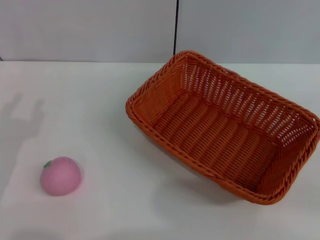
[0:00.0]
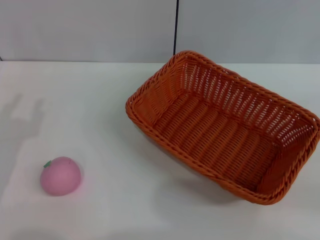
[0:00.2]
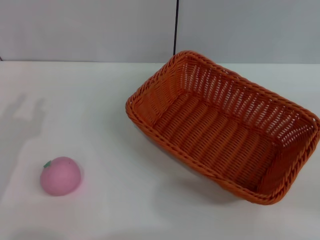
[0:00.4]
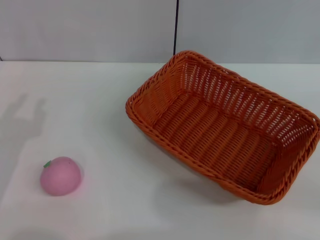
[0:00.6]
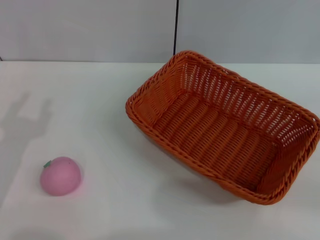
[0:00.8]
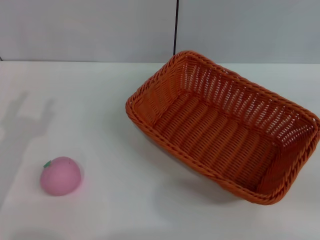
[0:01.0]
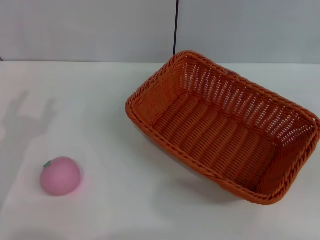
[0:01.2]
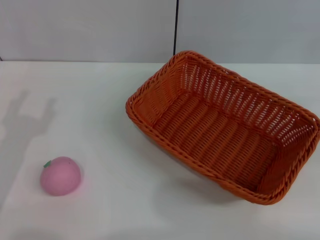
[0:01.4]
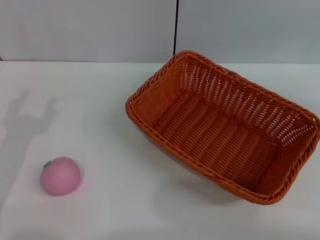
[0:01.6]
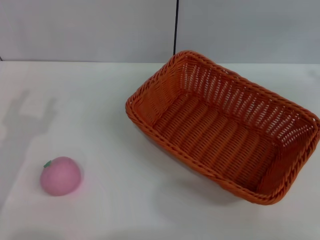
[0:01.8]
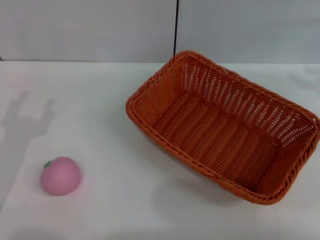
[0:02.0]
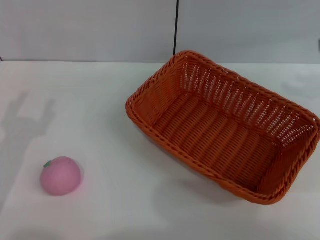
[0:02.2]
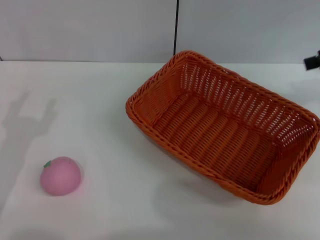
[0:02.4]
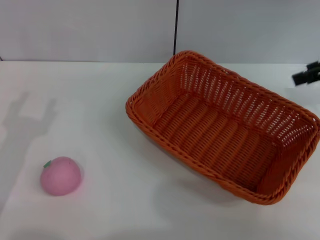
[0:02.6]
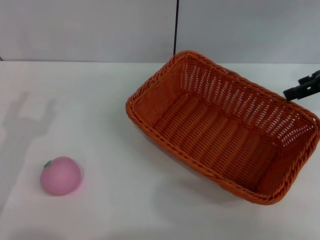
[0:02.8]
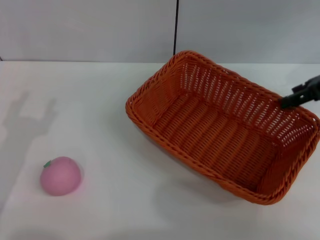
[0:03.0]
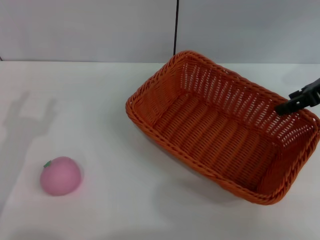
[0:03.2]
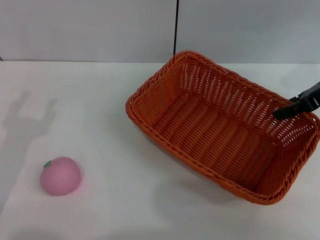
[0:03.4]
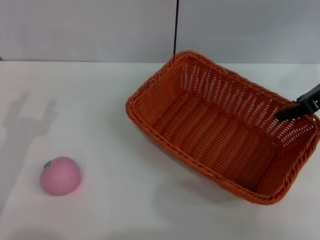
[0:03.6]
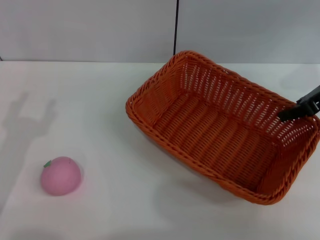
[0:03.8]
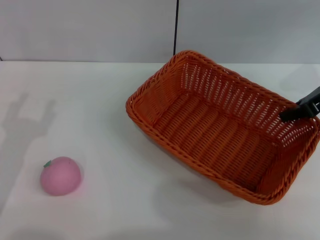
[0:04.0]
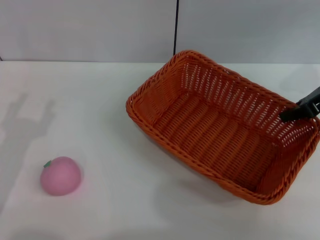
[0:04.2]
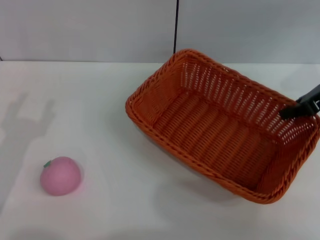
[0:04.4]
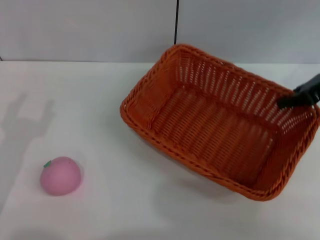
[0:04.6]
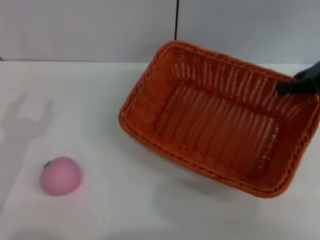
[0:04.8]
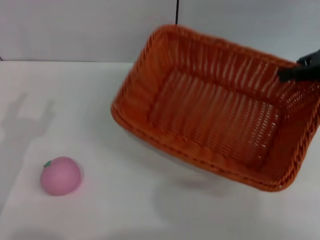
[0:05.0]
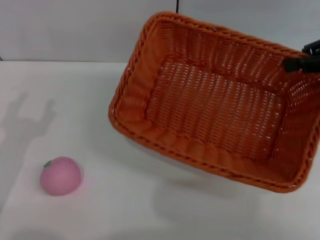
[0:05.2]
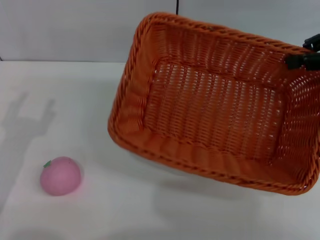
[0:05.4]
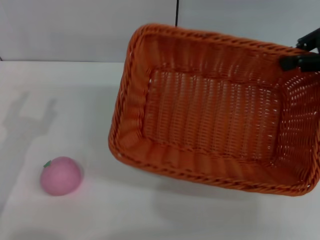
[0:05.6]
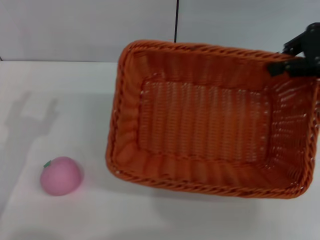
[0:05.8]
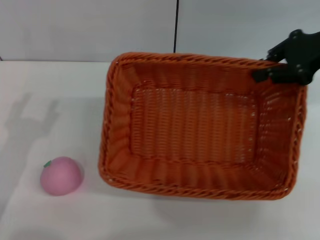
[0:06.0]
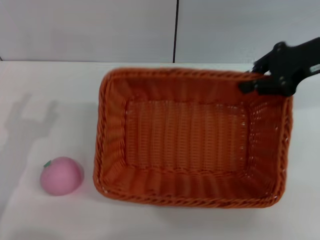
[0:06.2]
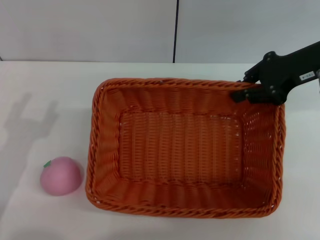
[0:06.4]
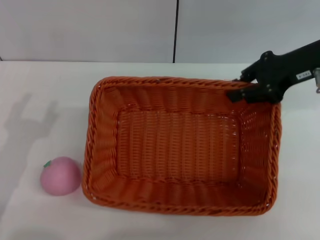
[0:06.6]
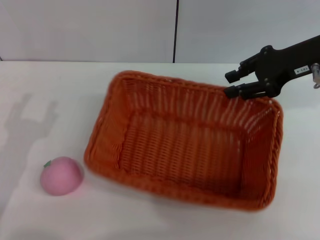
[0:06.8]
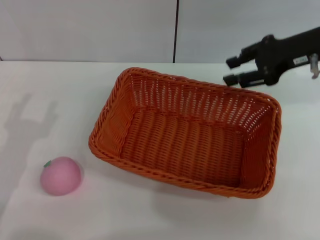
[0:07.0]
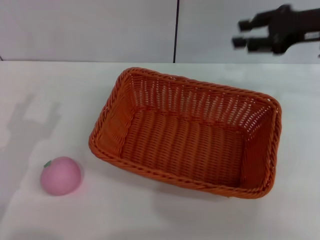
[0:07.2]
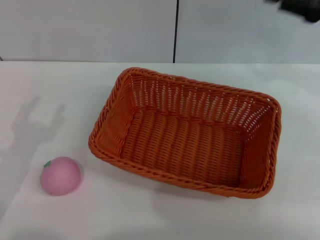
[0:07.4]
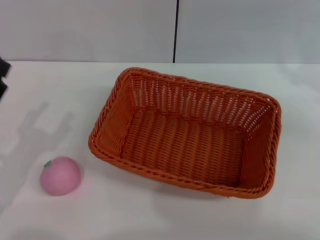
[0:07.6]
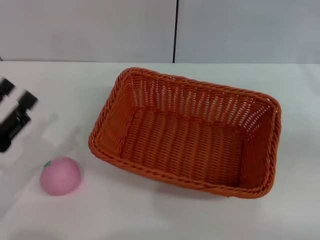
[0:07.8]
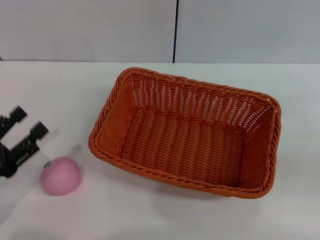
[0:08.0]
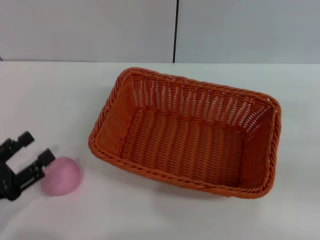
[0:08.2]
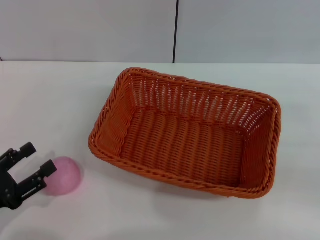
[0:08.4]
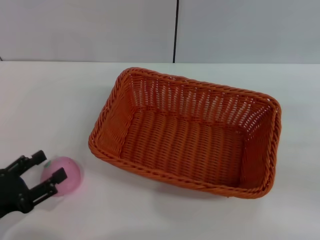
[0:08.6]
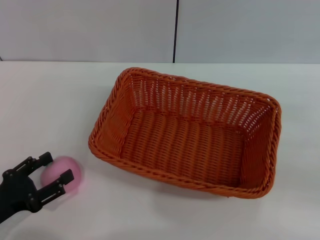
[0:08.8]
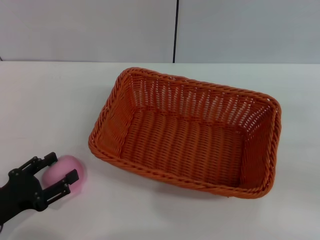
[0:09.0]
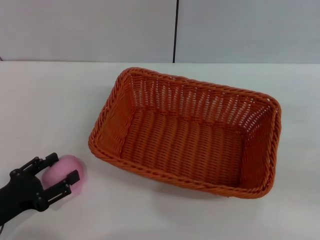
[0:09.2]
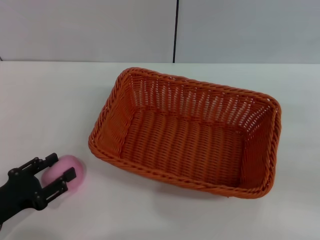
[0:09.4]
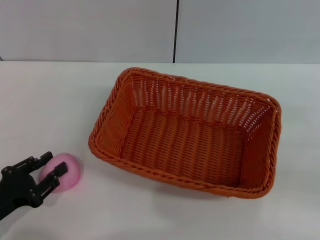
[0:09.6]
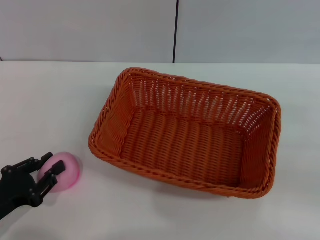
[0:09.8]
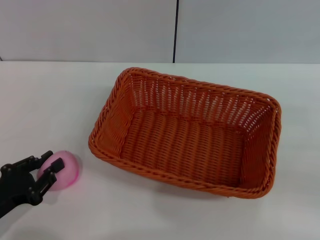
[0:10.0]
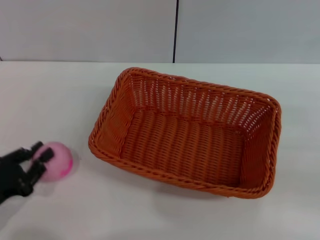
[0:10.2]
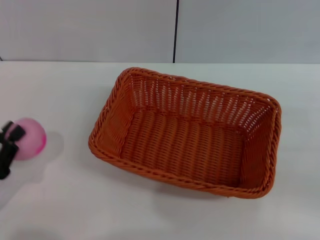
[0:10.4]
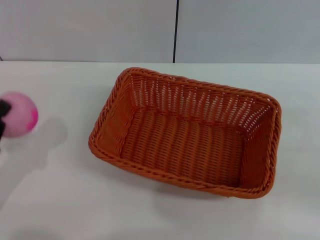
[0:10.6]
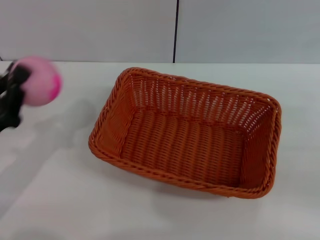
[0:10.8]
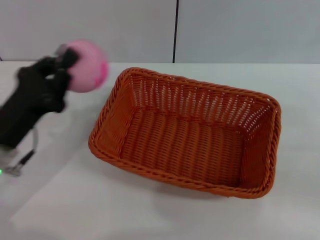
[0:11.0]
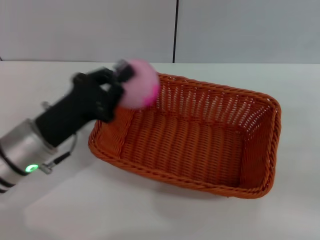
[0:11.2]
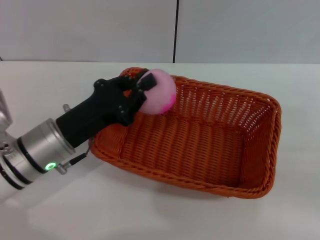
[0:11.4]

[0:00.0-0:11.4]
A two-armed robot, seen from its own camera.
Step, 0.0 to 4.4 s: Pick up the light basket with the right gripper.
Step, 4.6 to 6.8 s: Place the light basket in the center of view with the right gripper.
Step, 7.2 to 10.2 s: Pick up the peach with the left gripper.
1.4 to 2.8 s: The right gripper shifts approximately 20 cm to the left and forward.
2.8 to 4.2 s: The right gripper closes its fingers.
4.2 to 5.6 s: The right gripper goes approximately 5 cm upward.
5.6 to 7.2 s: The right gripper ends up about 5 cm from where it was, and opens.
7.2 to 8.6 s: The left gripper is displaced downward by approximately 5 cm, while the right gripper shifts about 20 cm backward, to the right and downward.
8.6 to 10.0 s: The left gripper closes its fingers.
10.0 to 11.4 s: The left gripper travels to the right, forward and upward by roughly 15 cm.

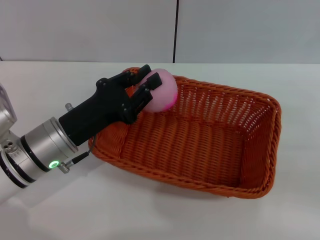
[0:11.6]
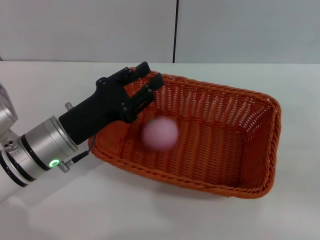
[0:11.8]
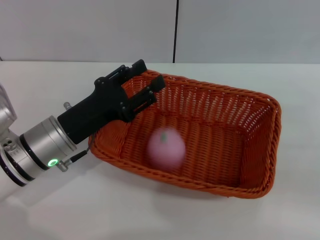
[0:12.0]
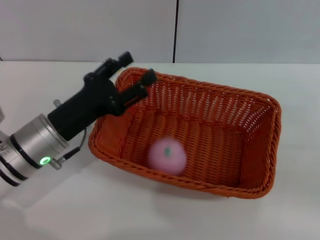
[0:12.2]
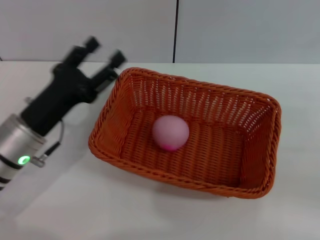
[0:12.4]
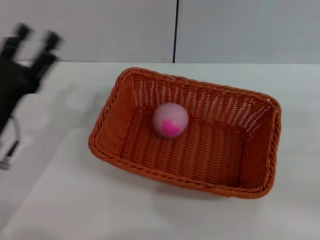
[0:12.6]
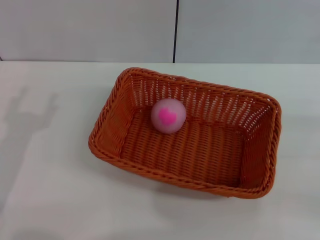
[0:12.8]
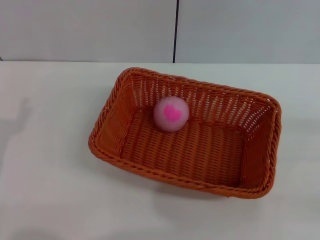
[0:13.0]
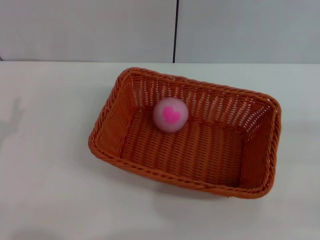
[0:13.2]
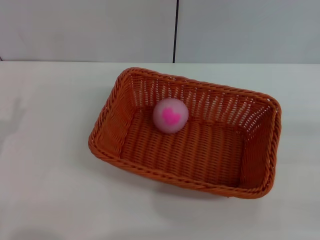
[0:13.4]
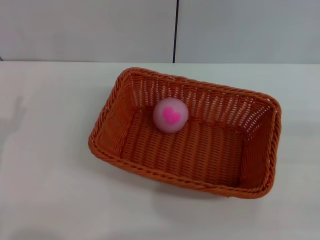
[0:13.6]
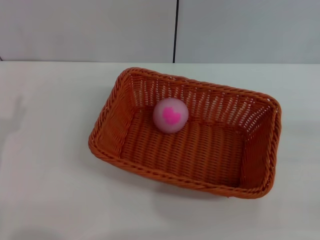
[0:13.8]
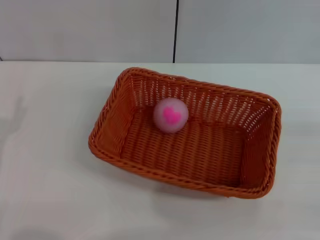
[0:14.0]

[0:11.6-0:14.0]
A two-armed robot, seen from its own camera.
11.6 to 12.8 s: The left gripper heads to the left and backward, covering about 10 cm, and opens up.

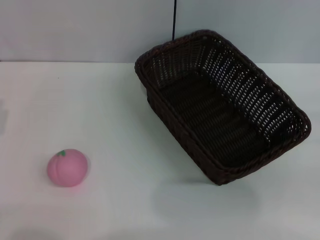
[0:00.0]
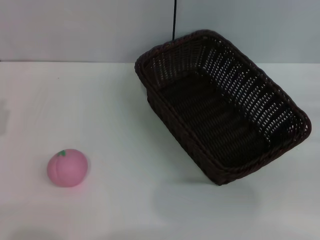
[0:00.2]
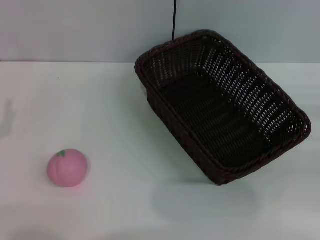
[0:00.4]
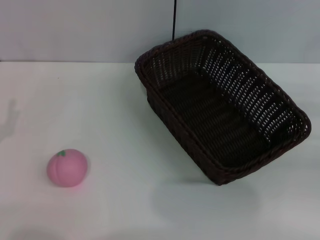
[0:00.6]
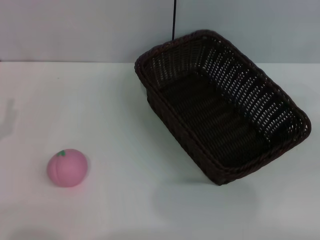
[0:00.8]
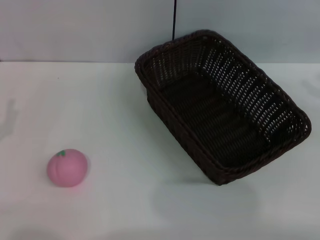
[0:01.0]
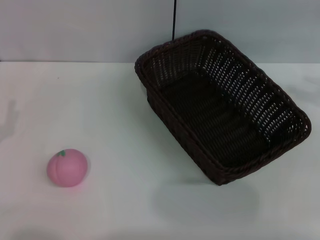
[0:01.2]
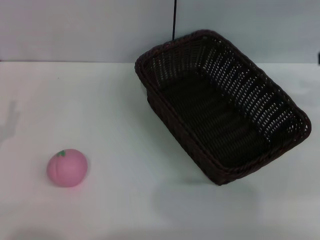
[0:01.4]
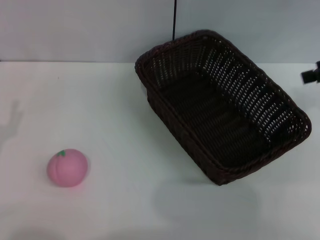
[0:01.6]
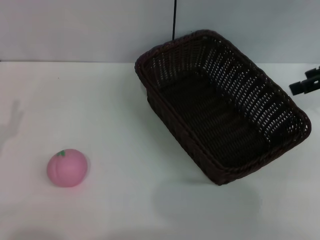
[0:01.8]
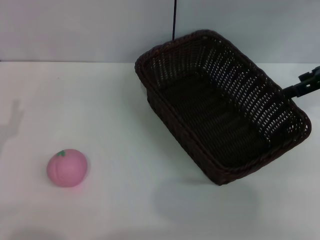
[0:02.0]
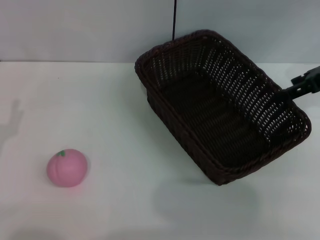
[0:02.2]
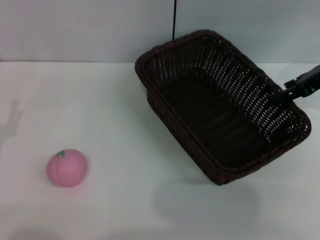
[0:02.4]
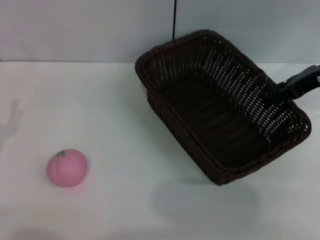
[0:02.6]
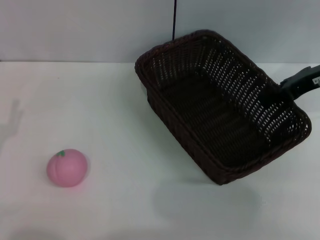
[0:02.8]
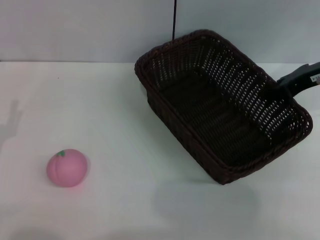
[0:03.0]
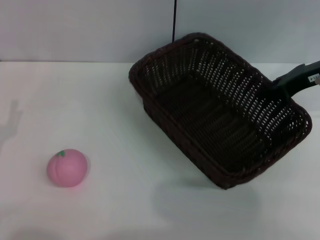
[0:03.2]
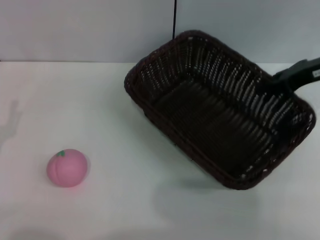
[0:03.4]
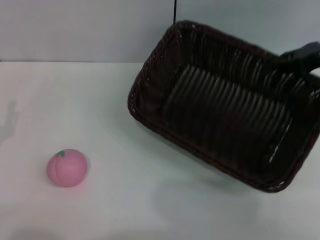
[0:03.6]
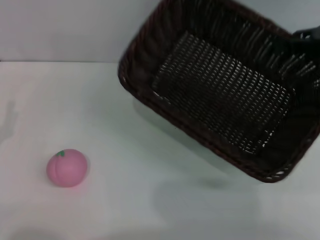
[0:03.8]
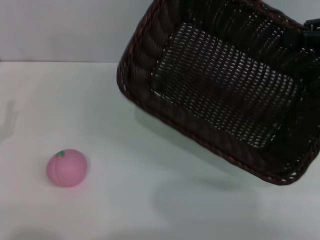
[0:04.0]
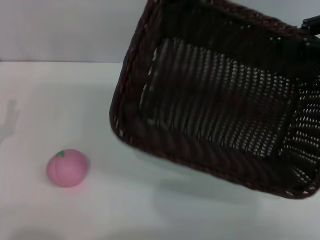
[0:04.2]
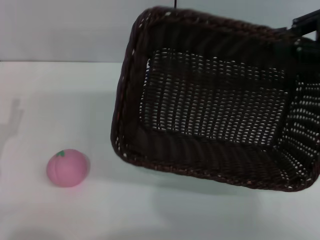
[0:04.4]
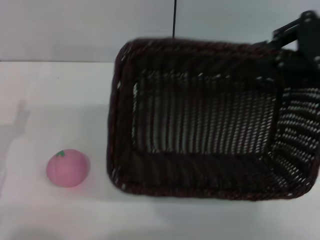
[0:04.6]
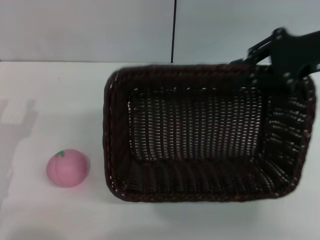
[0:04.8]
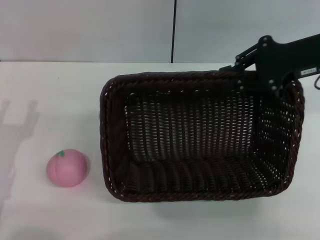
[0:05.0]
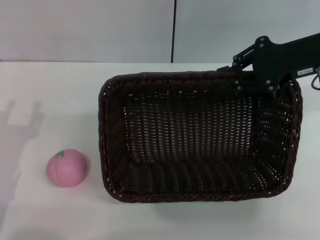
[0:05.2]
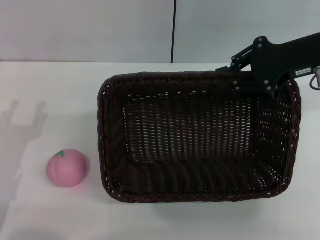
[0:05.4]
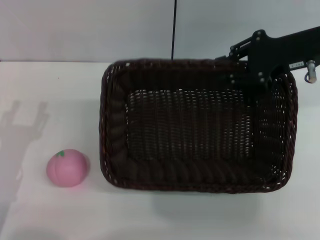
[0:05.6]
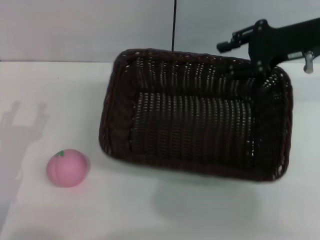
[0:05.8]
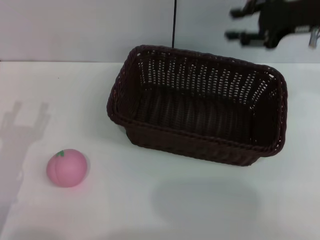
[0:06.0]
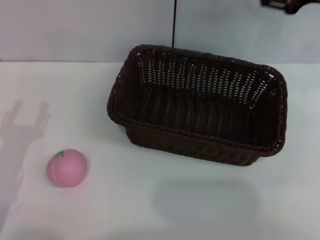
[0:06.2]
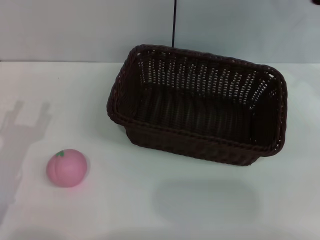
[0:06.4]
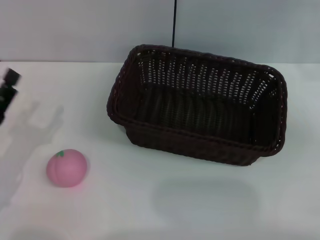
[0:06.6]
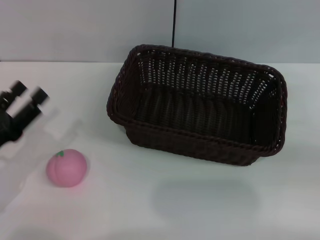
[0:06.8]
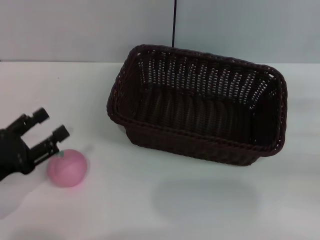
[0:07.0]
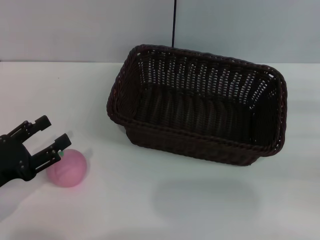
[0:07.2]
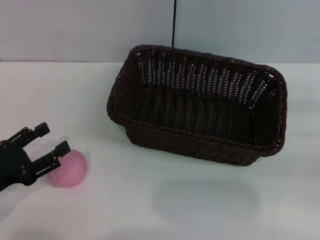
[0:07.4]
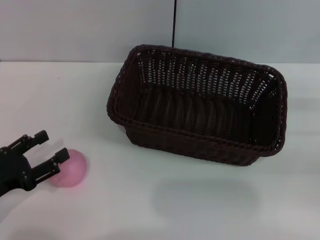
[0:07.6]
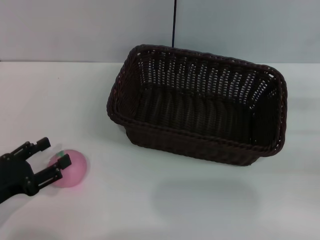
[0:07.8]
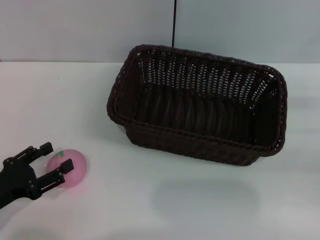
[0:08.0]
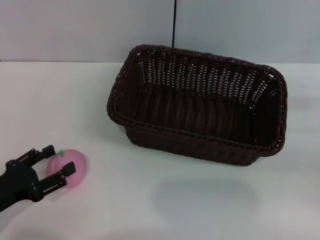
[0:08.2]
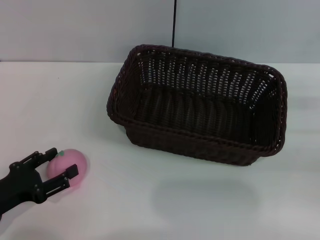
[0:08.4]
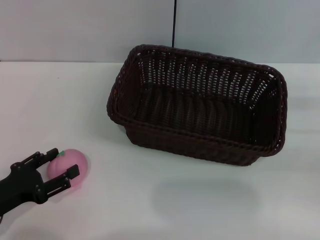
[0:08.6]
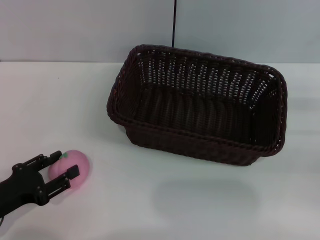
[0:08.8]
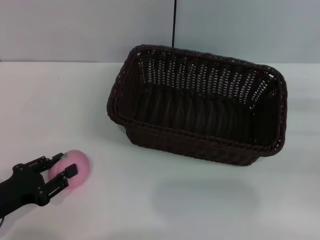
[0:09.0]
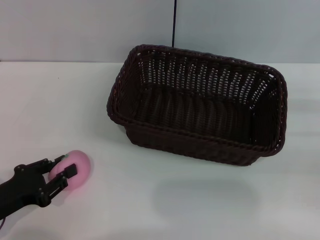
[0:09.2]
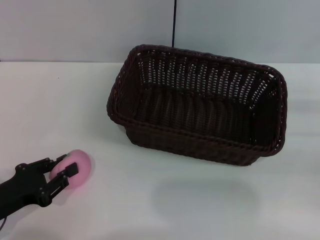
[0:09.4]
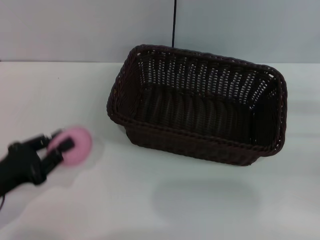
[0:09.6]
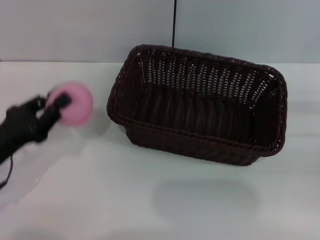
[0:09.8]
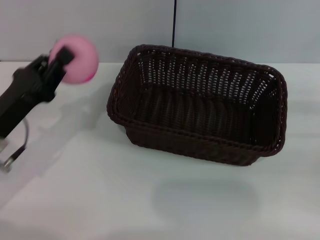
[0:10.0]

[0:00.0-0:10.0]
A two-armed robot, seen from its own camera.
Step, 3.6 to 6.2 s: Place the dark basket in the center of view with the right gripper.
Step, 6.4 to 9.8 s: Pick up the peach with the left gripper.
0.0 to 1.4 s: The right gripper shifts approximately 20 cm upward and forward, and opens up.
1.4 to 2.8 s: The right gripper shifts some 10 cm to the left and downward, and closes its fingers.
2.8 to 4.2 s: The right gripper heads upward, covering some 5 cm, and closes.
4.2 to 5.8 s: The right gripper travels to the left by roughly 10 cm.
5.8 to 7.2 s: The right gripper travels to the right, backward and downward by approximately 25 cm.
7.2 to 8.6 s: There are only small adjustments of the grippers.
8.6 to 10.0 s: The left gripper is displaced forward and upward by some 10 cm, and closes up.
